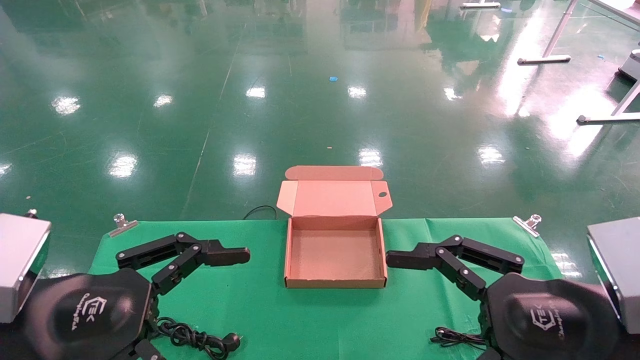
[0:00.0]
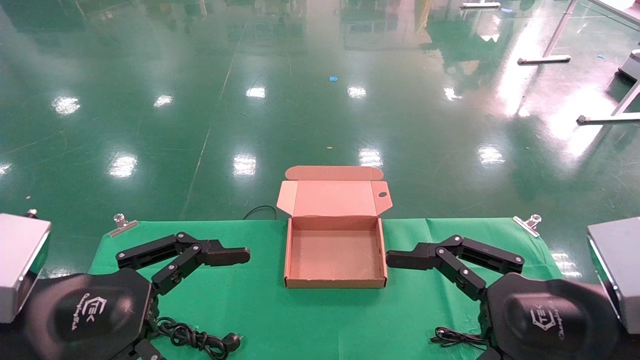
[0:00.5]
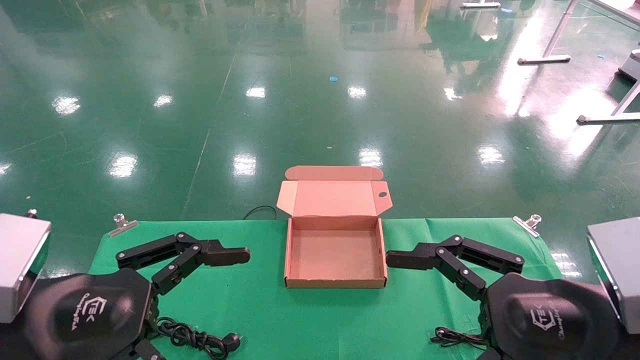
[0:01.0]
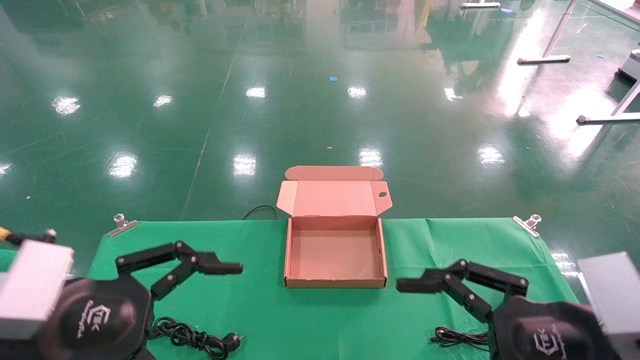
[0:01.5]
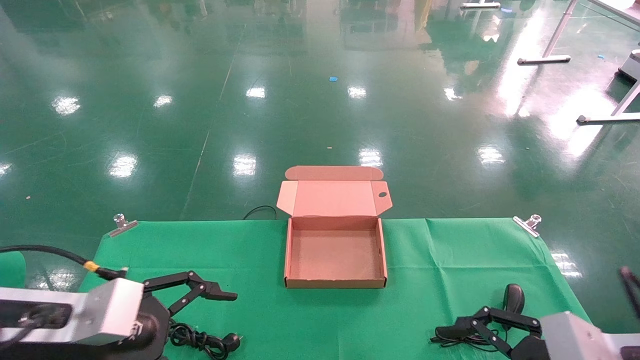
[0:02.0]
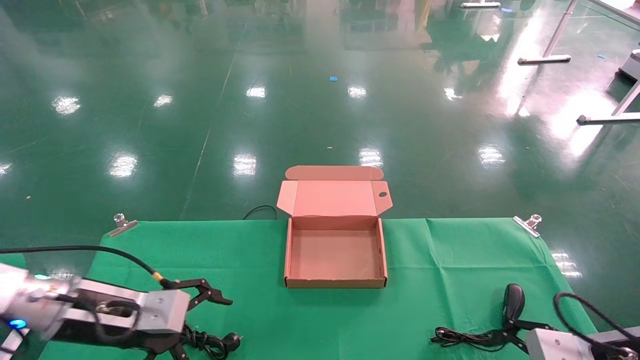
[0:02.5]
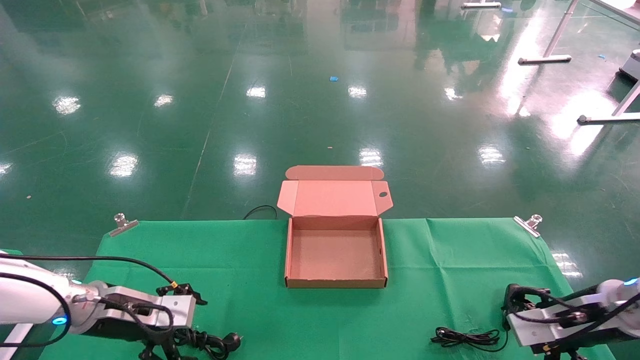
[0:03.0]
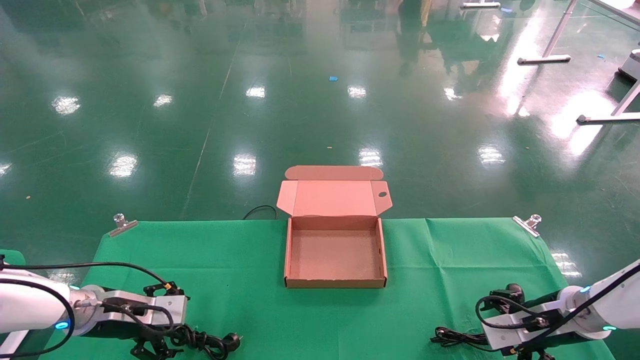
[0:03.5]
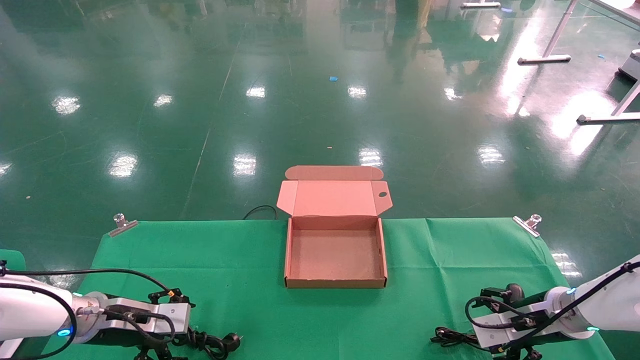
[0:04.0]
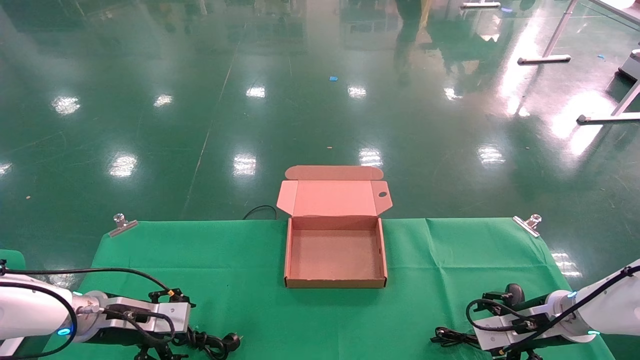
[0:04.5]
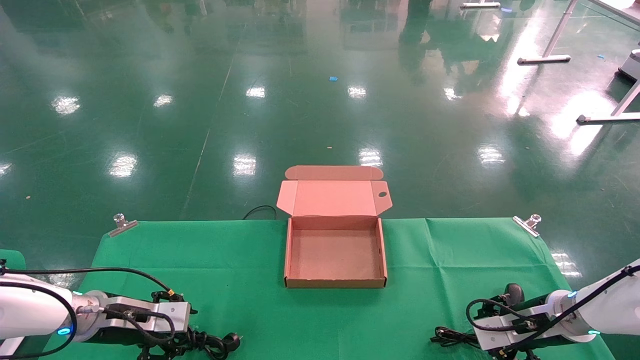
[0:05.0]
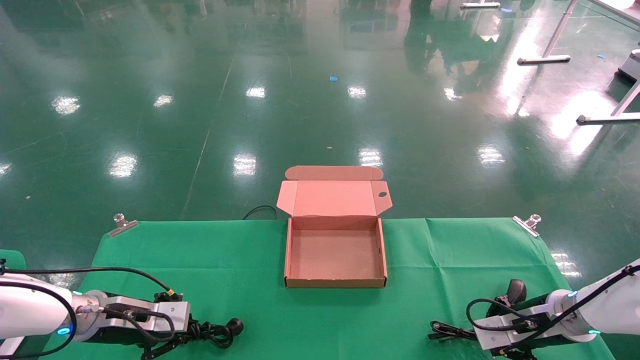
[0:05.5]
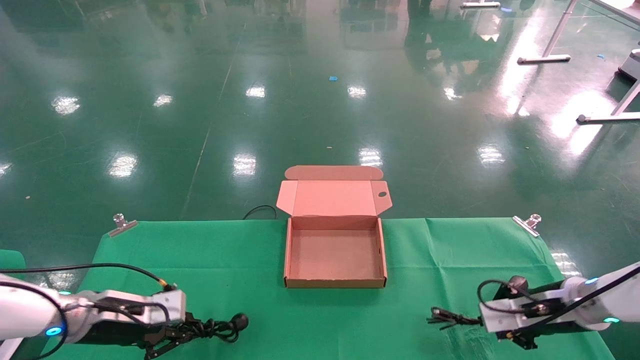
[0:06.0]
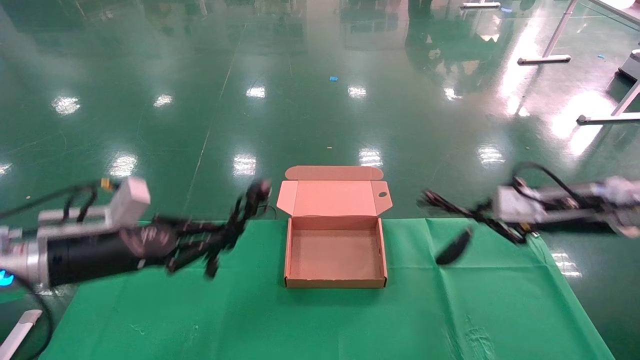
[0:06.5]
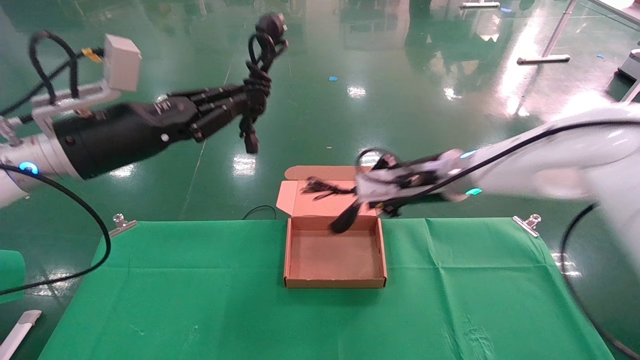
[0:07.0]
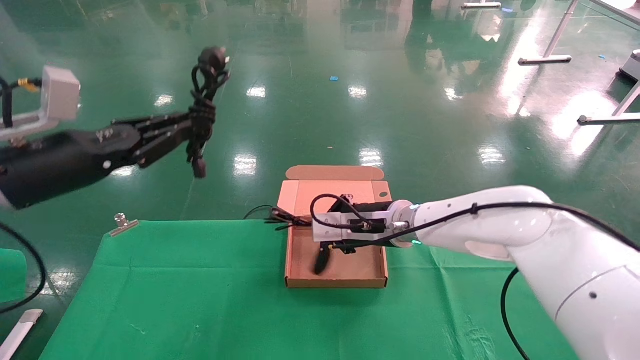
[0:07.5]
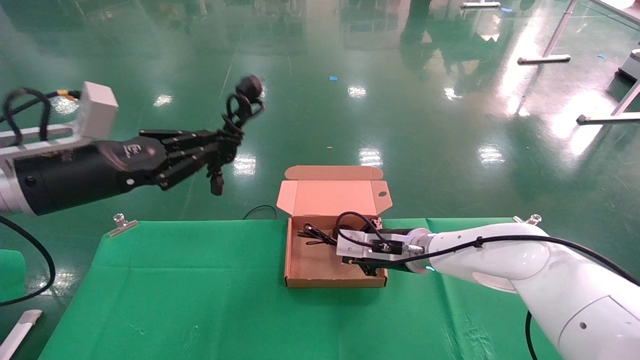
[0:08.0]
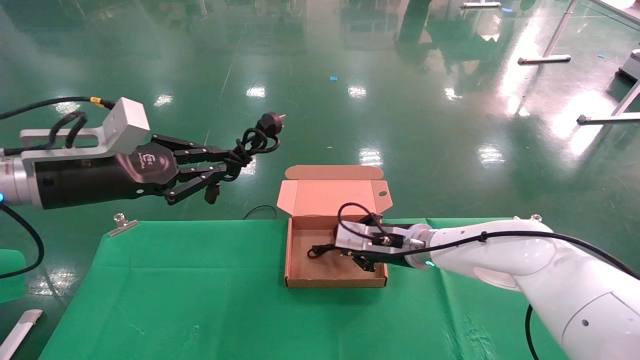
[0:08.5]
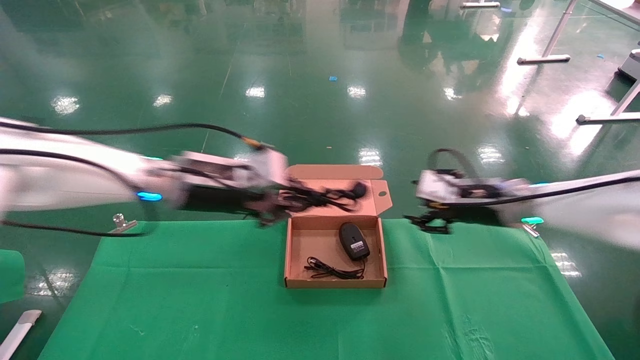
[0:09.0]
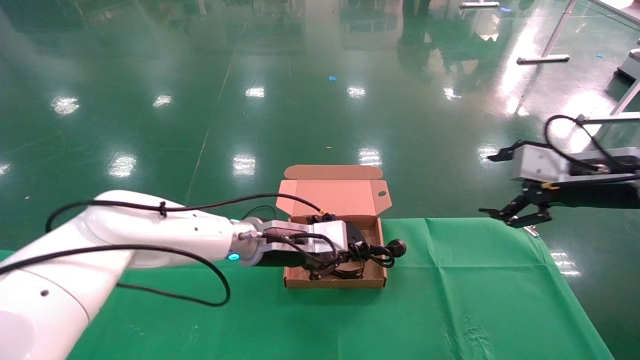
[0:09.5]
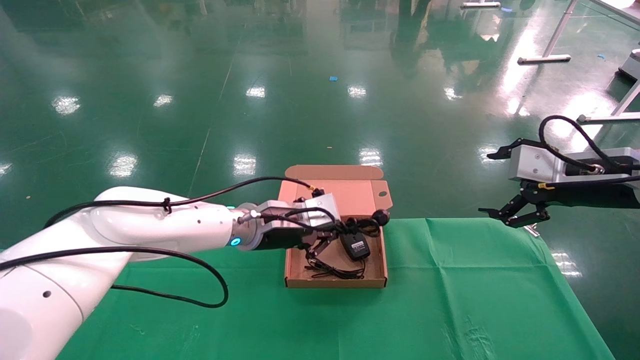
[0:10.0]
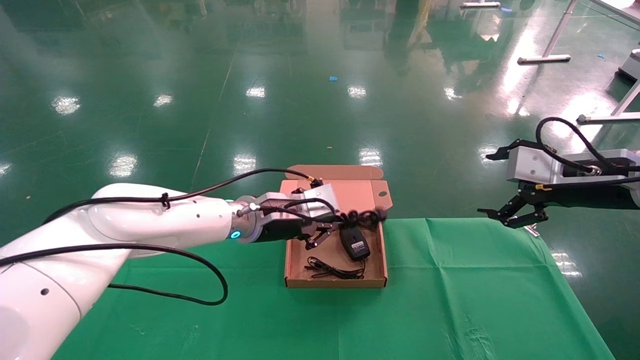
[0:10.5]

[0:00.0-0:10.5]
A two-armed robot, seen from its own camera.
Step, 0:01.5 to 0:05.5: Grab and lift both the mouse and power cord from the accessory packaging area at the same time.
Step, 0:06.0 to 0:10.5: Place the mouse and power cord into the box.
0:00.0 to 0:02.0: The left gripper shifts roughly 5 cm forward, while the right gripper travels downward and to the right by about 10 cm.
0:02.0 to 0:04.0: Both grippers travel together forward and downward, roughly 20 cm.
0:04.0 to 0:06.5: Both grippers travel together upward, some 15 cm. The right gripper closes up, while the left gripper closes up.
0:06.5 to 0:08.5: The right gripper travels to the left and downward by approximately 20 cm, while the left gripper heads upward, covering approximately 10 cm.
0:08.5 to 0:10.5: The left gripper travels to the right, forward and downward by some 25 cm, while the right gripper goes some 30 cm to the right, upward and backward, and opens up.

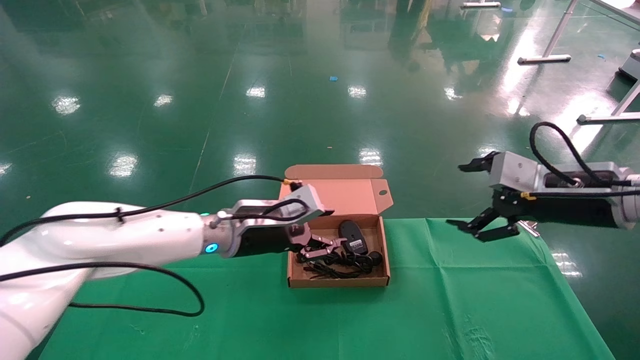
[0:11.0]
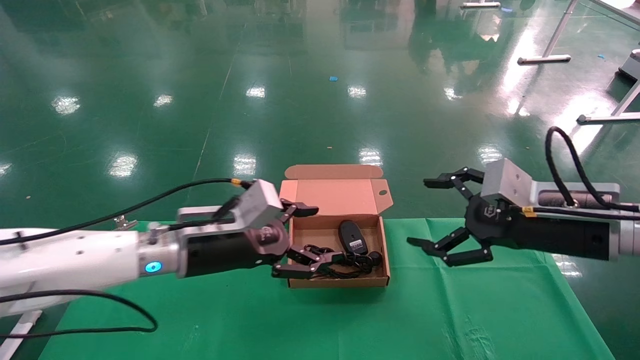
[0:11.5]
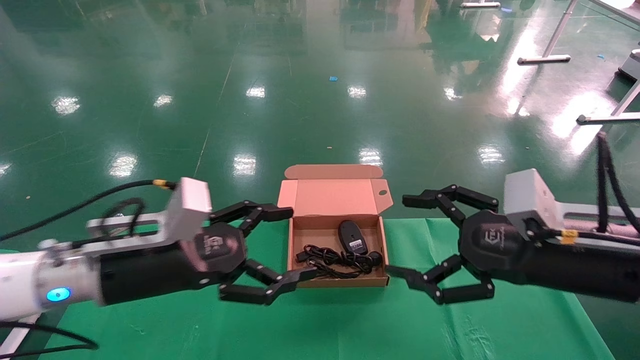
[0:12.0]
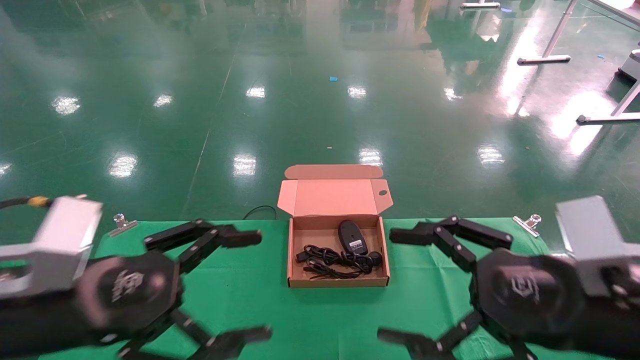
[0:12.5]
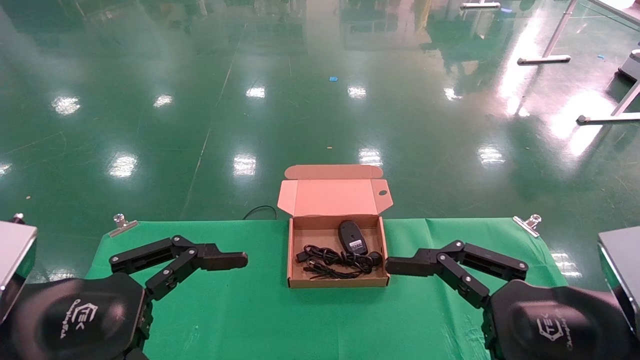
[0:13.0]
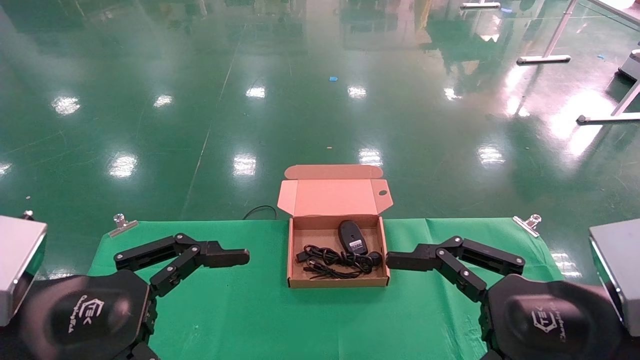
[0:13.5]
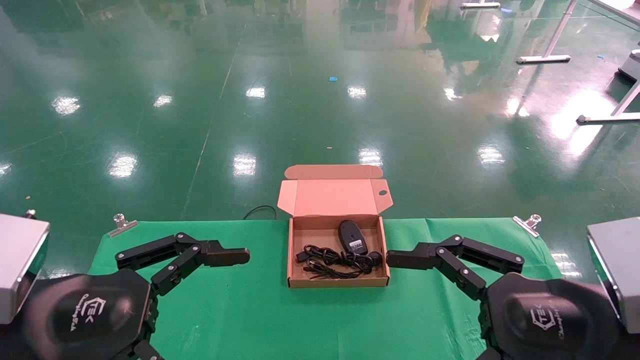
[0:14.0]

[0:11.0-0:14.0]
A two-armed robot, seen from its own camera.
0:11.0 to 0:12.5: The grippers both shift backward and to the left by about 20 cm. The left gripper opens its fingers.
0:12.5 to 0:14.0: The grippers make only small movements.

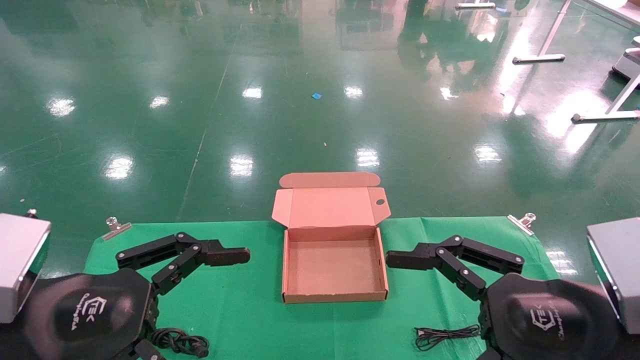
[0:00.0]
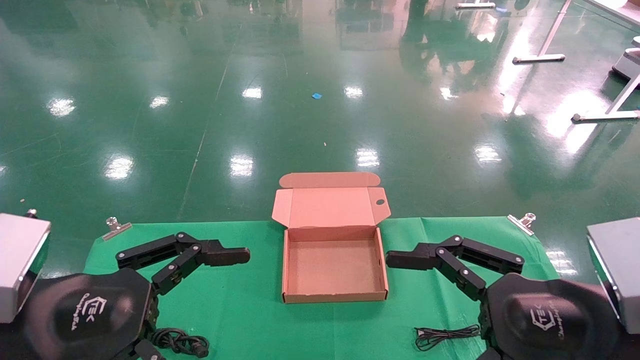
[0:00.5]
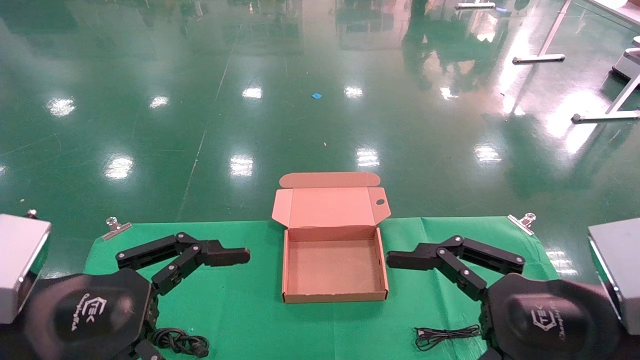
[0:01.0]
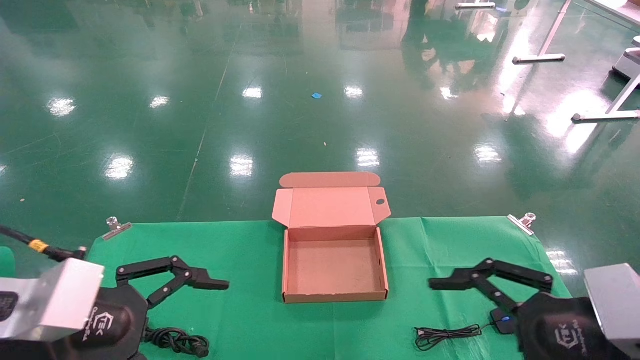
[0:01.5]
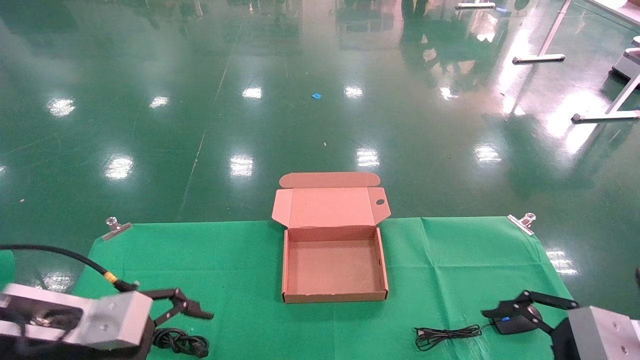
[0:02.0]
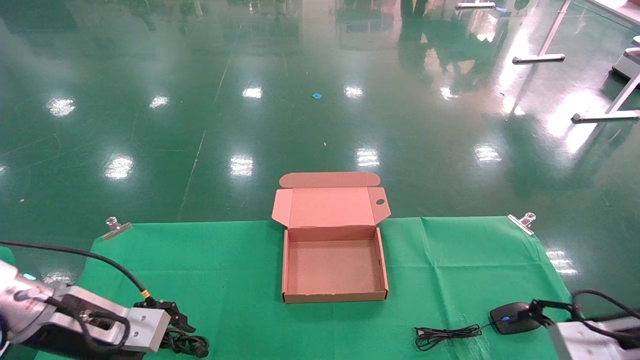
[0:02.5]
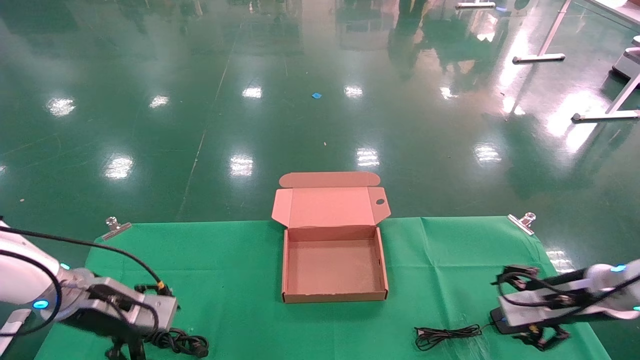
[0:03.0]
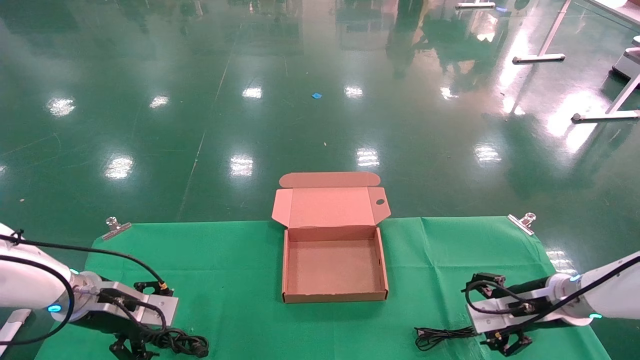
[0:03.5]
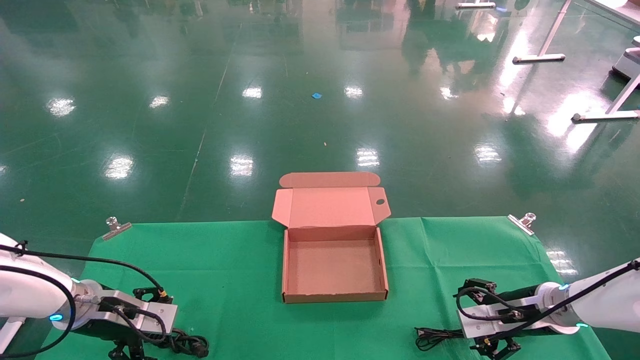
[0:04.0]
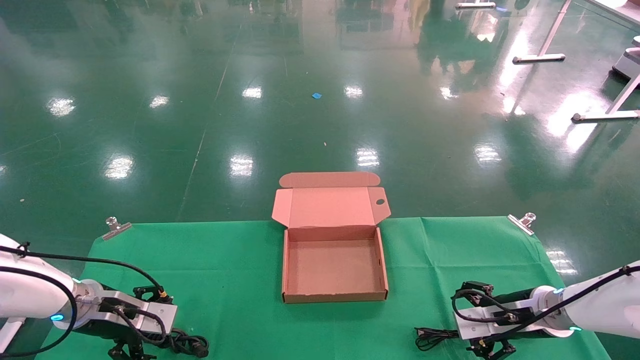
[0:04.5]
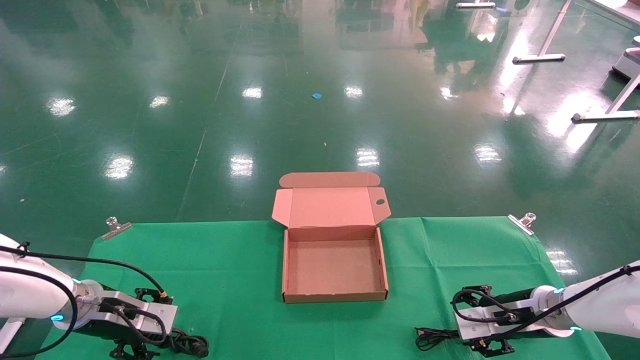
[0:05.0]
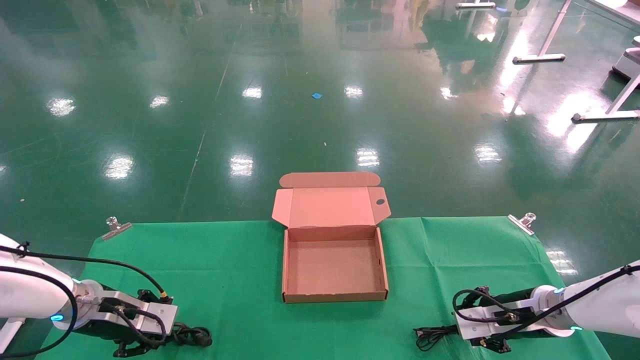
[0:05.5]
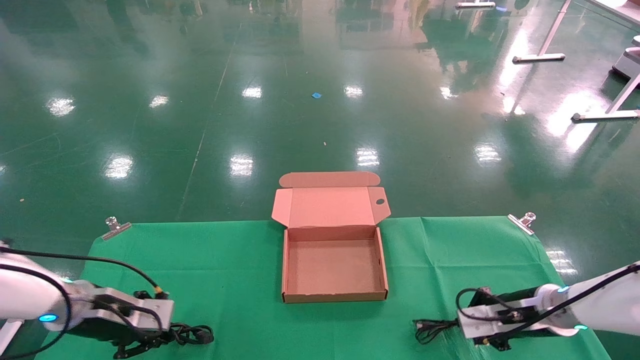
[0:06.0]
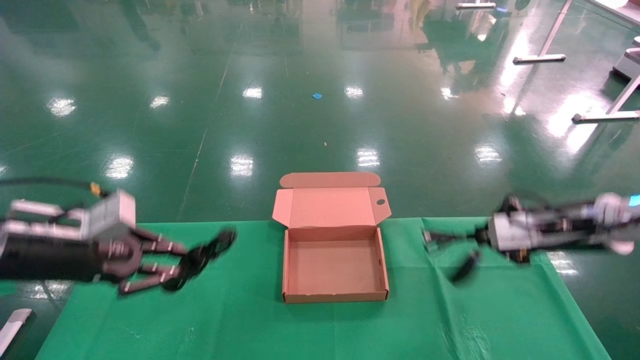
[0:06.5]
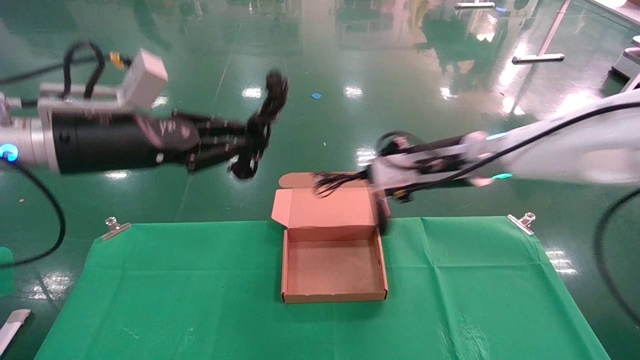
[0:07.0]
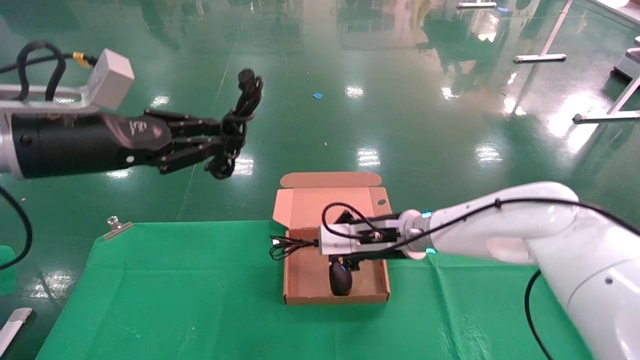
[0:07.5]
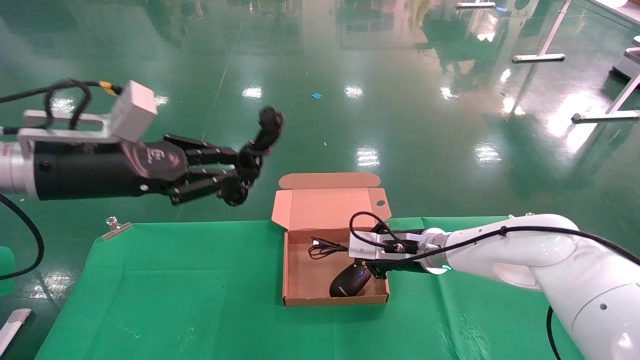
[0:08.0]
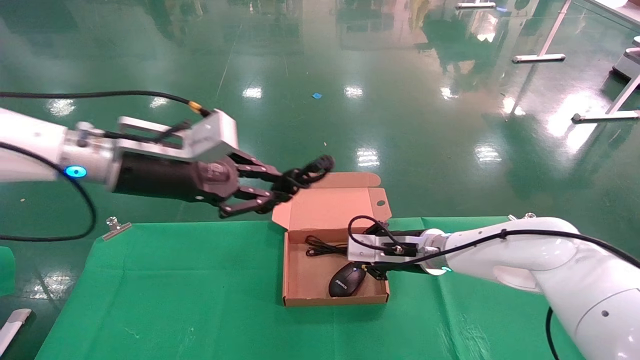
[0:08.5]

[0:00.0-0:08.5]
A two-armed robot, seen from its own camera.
Step, 0:02.0 to 0:06.0: Grab and lift both the mouse and power cord from the accessory packaging area at the same time.
0:00.0 to 0:02.0: The left gripper is displaced forward by approximately 10 cm; the right gripper heads to the right, forward and downward, covering some 15 cm.
0:02.0 to 0:04.0: Both grippers move forward and downward, some 20 cm.
0:04.0 to 0:06.5: The left gripper goes roughly 15 cm upward and backward, and closes, while the right gripper is displaced upward by some 15 cm, and closes.
0:06.5 to 0:08.5: The left gripper is displaced to the right and upward by some 15 cm; the right gripper travels to the left and downward by some 20 cm.
